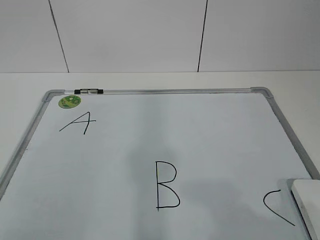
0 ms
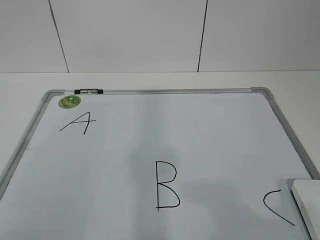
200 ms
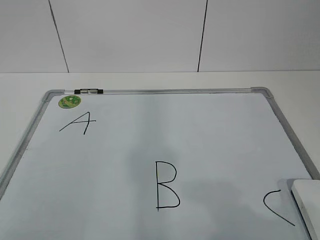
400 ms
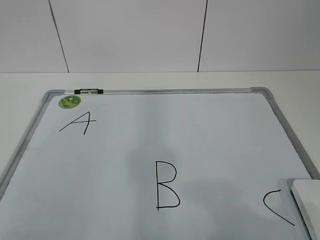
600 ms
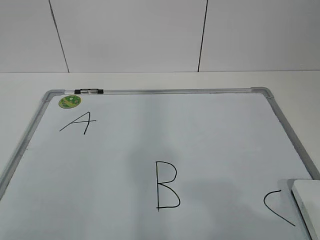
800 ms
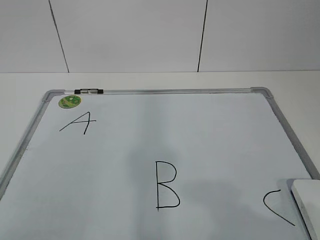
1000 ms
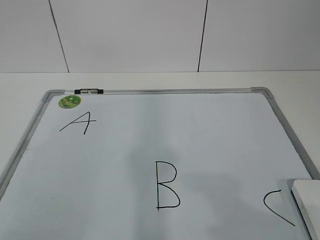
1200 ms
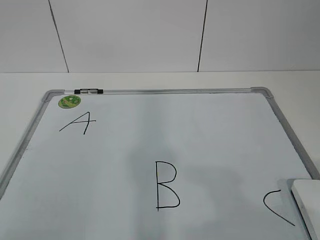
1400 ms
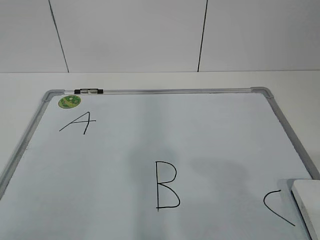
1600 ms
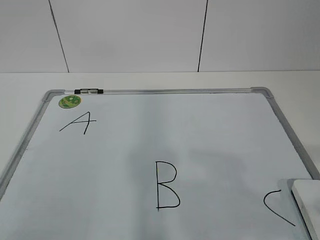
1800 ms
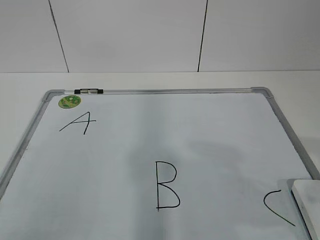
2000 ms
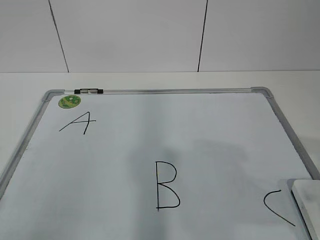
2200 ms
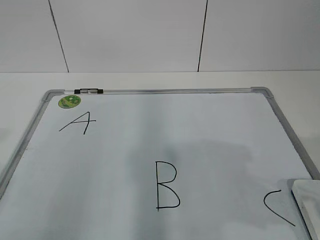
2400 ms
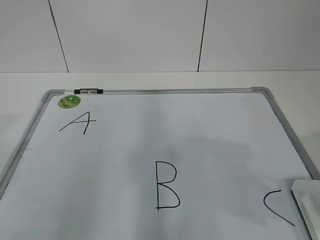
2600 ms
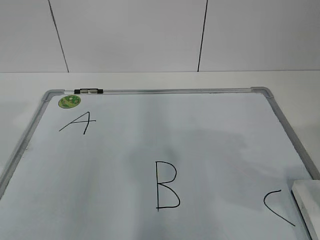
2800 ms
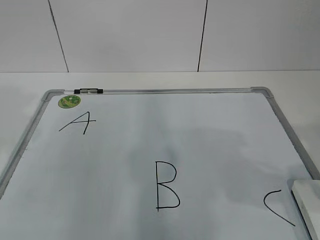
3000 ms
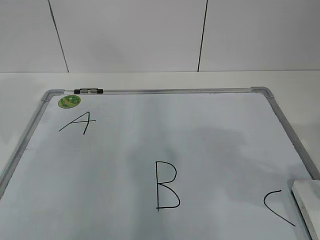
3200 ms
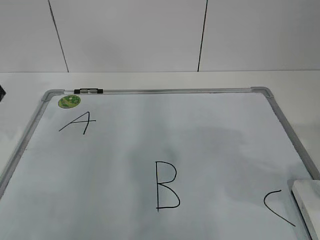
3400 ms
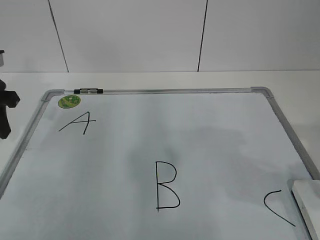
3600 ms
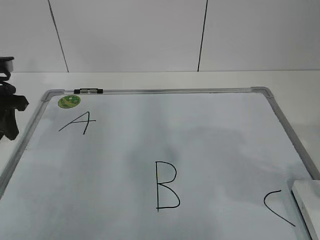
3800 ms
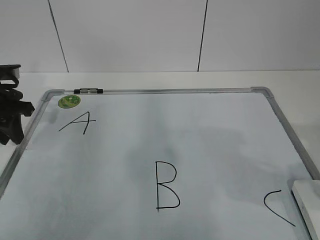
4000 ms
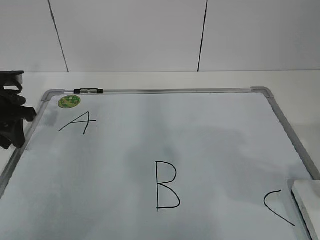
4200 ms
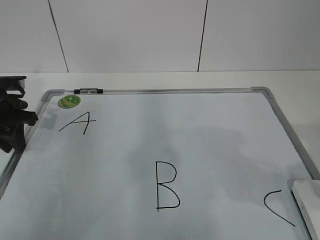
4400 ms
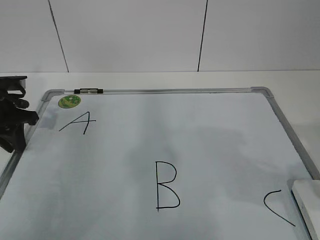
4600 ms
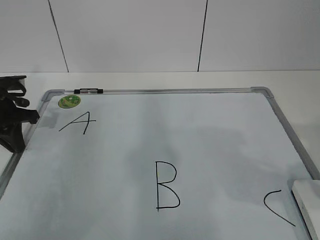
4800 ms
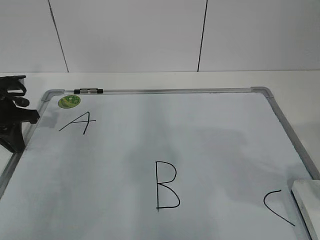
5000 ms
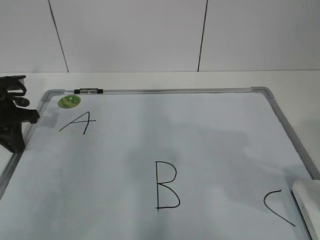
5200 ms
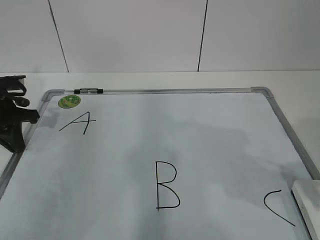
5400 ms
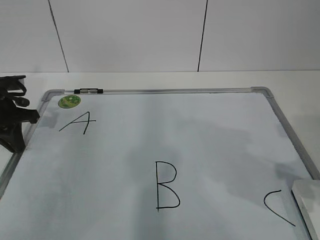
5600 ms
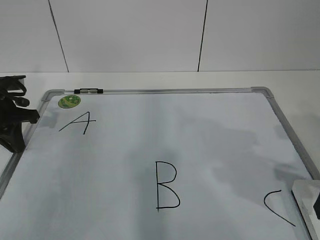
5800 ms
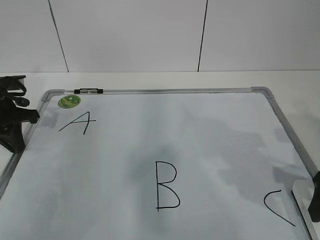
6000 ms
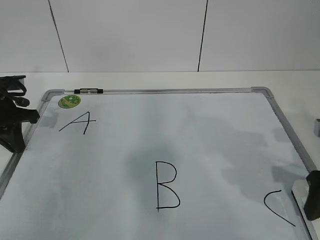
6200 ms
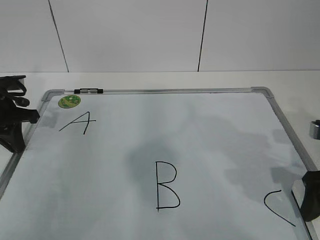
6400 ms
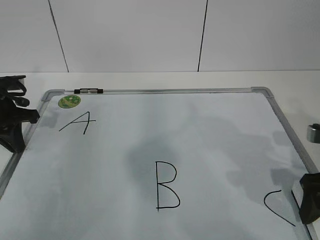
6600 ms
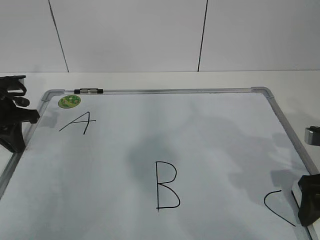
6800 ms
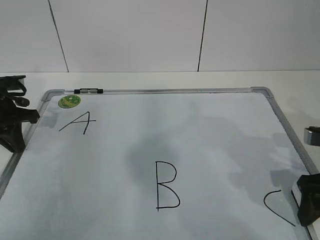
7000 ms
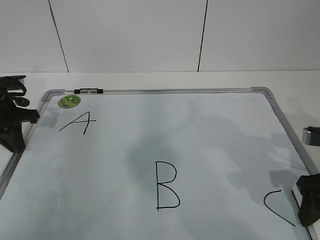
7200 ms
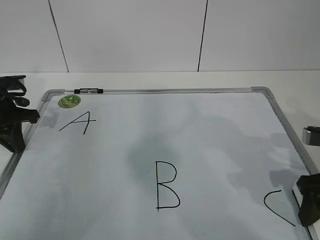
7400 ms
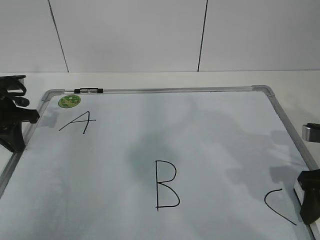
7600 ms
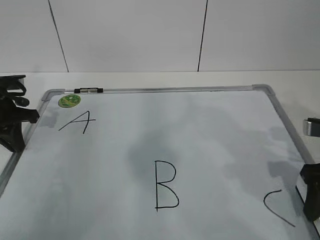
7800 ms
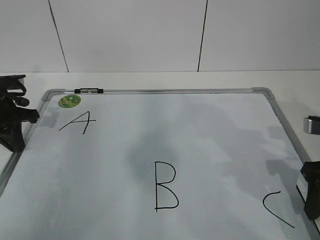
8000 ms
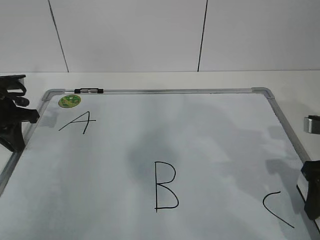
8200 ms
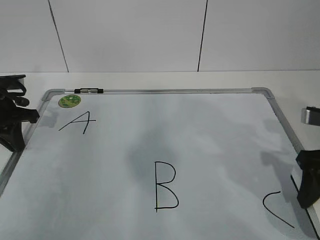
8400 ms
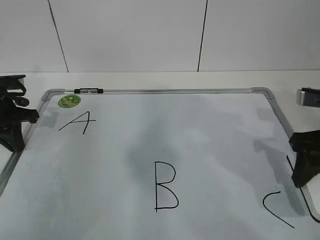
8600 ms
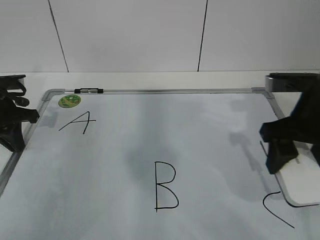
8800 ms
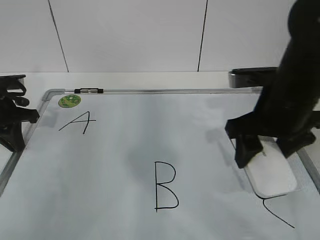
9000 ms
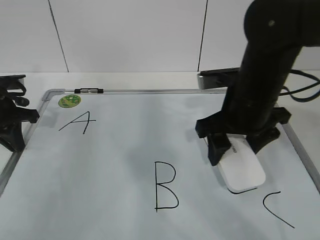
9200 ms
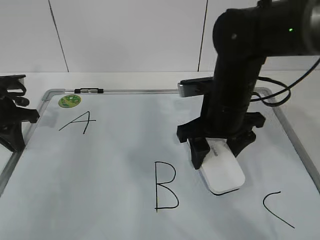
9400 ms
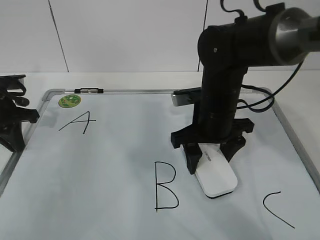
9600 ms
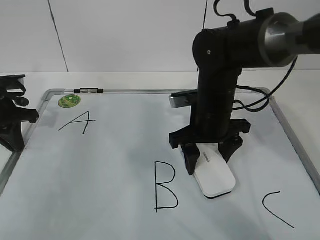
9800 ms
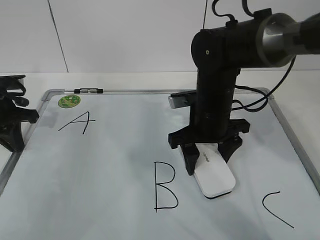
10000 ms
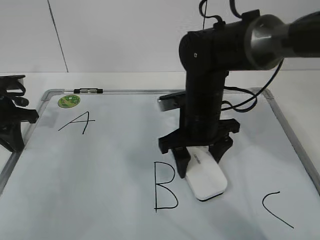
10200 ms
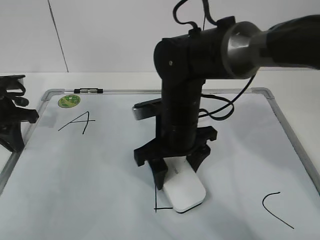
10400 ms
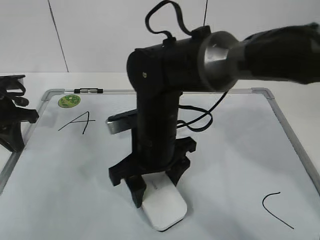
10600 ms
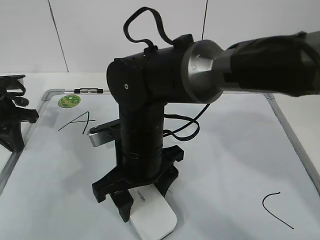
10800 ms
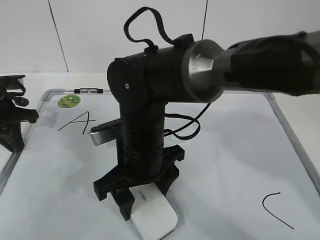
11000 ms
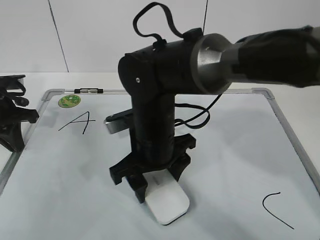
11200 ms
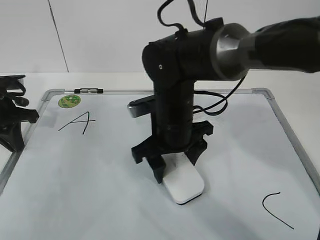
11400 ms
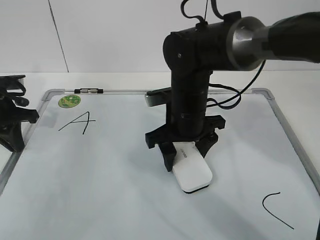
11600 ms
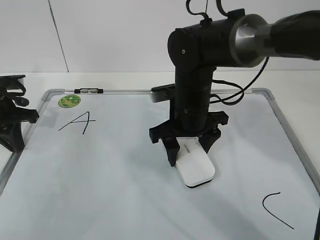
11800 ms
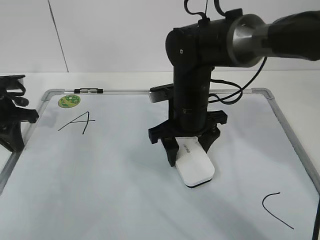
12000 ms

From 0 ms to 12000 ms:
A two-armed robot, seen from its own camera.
Task of the whole recording: pick up the eraser on the blackboard and erase the letter "B".
Step, from 0 ms to 3800 ms: Hold the drawing board steady with your left hand.
Step, from 4000 ms to 6200 ms: Grab the eraser with your right hand.
Step, from 6600 ms to 11200 ms: Erase the letter B with your right hand.
From 3000 ms to 4400 ms: The left gripper moves forward and downward, roughly 20 cm.
From 4400 ms to 6000 ms: The left gripper closes its fingers; the right gripper moves forward and downward, about 10 cm, and opens up.
From 6000 ms to 7600 ms: The right gripper closes up.
From 7600 ms to 9000 ms: The right gripper is displaced to the left and upward by some 10 cm.
From 9000 ms to 10400 ms: The right gripper is displaced to the left and downward by roughly 15 cm.

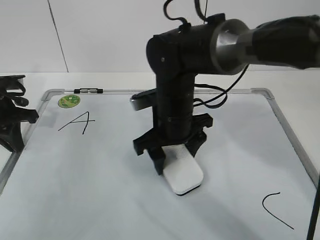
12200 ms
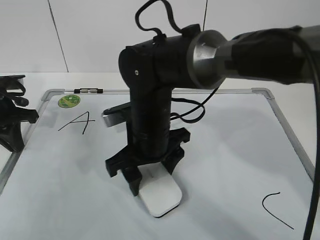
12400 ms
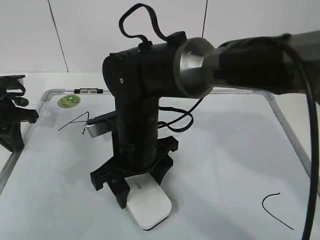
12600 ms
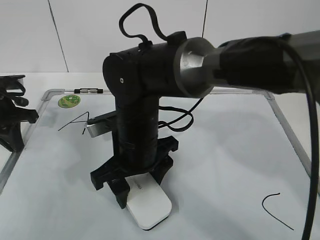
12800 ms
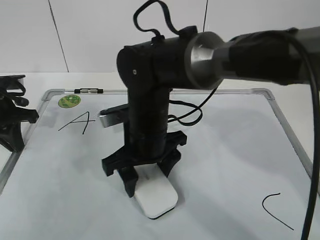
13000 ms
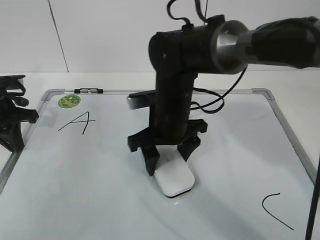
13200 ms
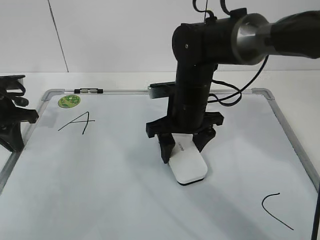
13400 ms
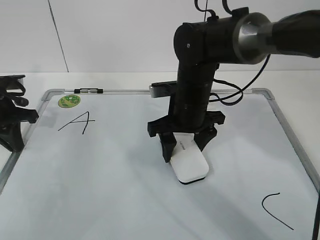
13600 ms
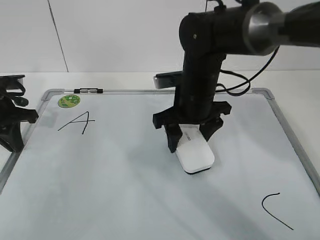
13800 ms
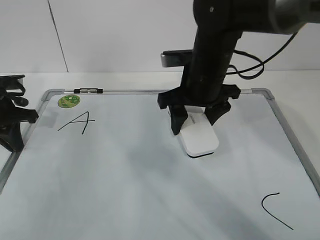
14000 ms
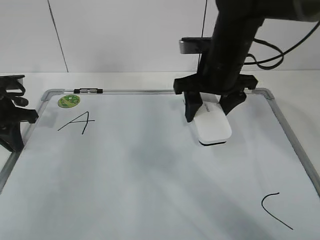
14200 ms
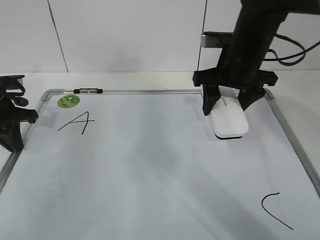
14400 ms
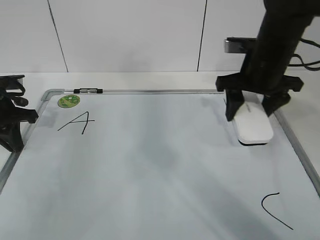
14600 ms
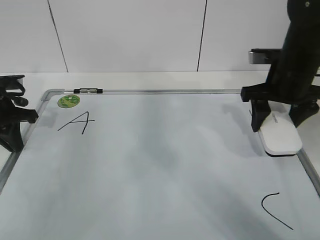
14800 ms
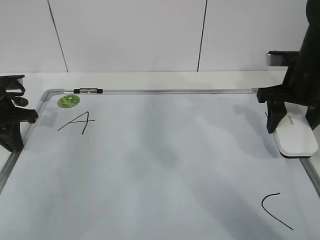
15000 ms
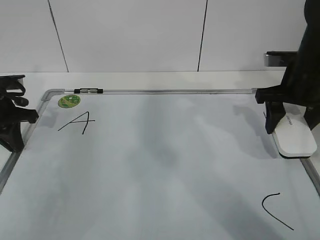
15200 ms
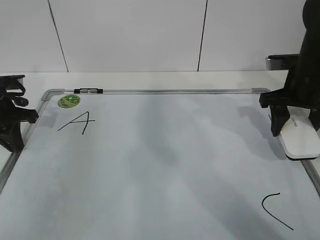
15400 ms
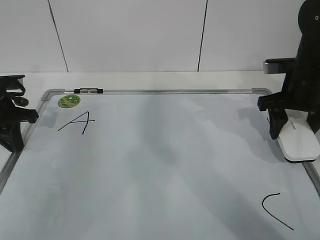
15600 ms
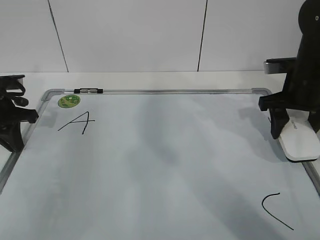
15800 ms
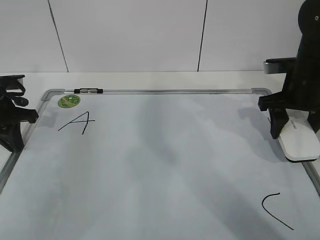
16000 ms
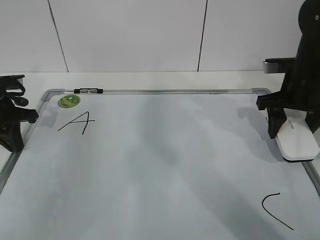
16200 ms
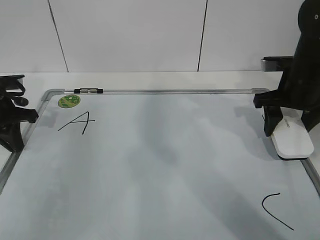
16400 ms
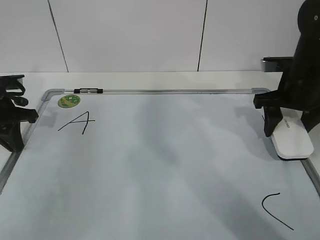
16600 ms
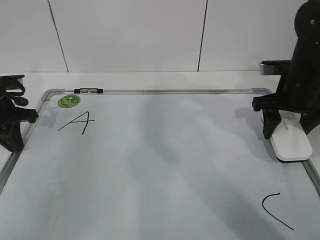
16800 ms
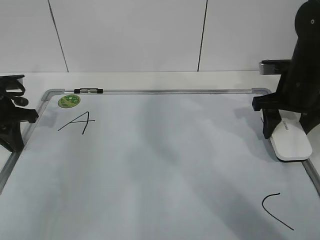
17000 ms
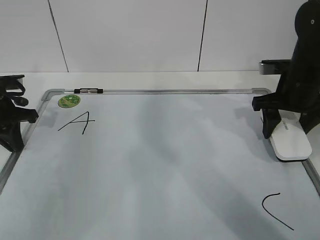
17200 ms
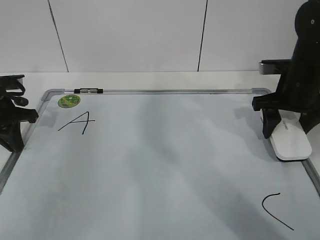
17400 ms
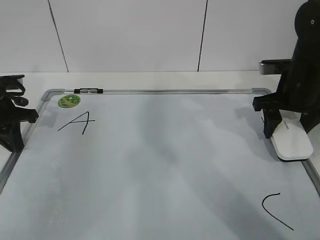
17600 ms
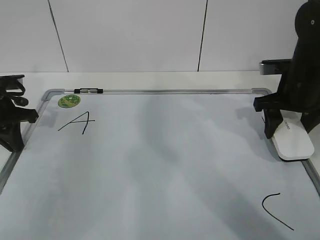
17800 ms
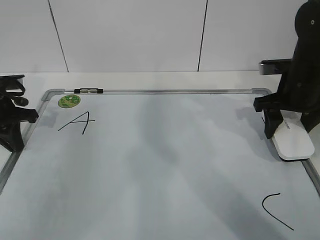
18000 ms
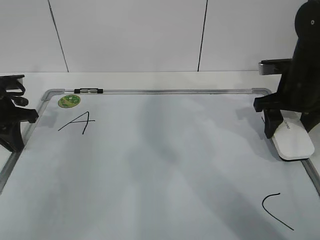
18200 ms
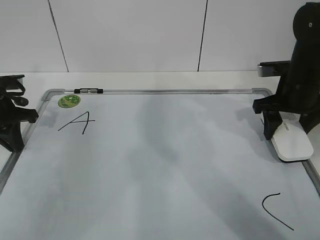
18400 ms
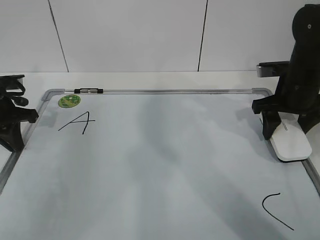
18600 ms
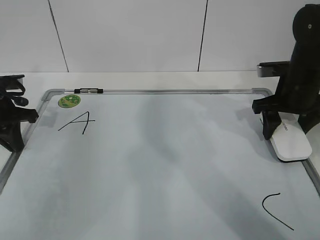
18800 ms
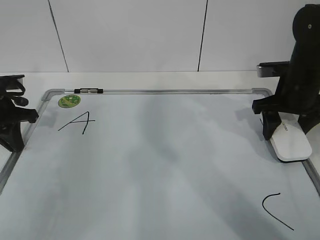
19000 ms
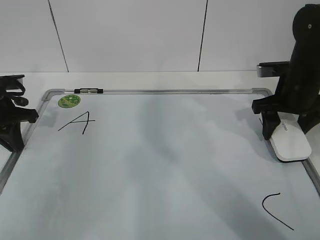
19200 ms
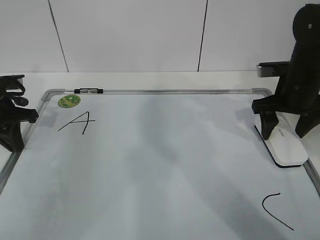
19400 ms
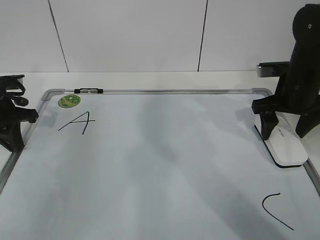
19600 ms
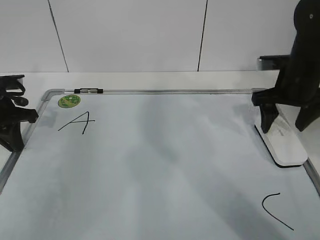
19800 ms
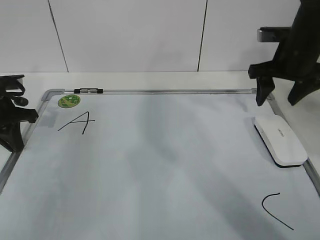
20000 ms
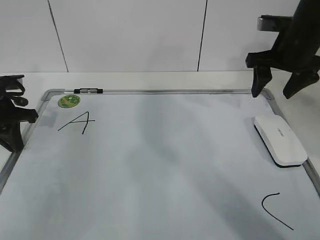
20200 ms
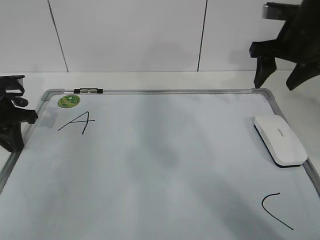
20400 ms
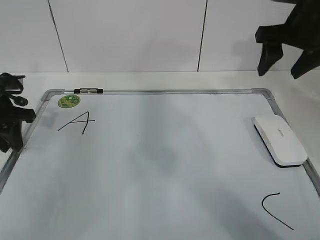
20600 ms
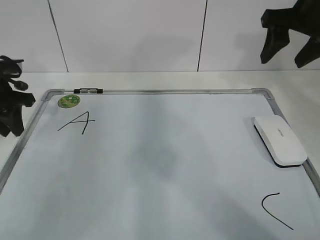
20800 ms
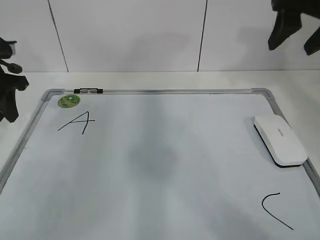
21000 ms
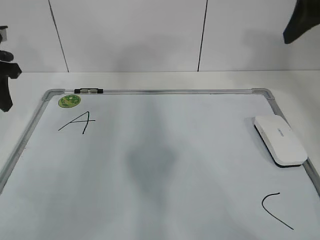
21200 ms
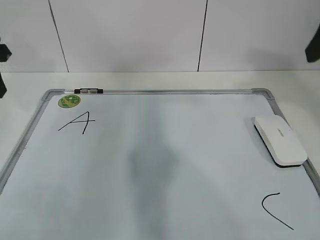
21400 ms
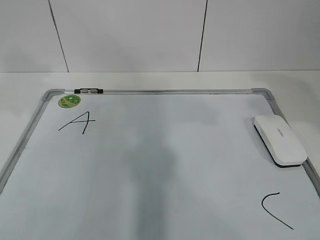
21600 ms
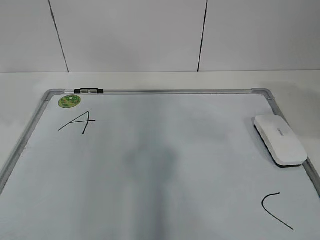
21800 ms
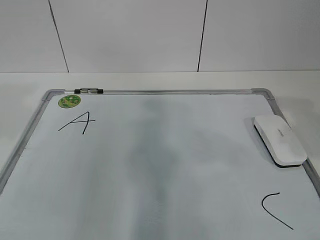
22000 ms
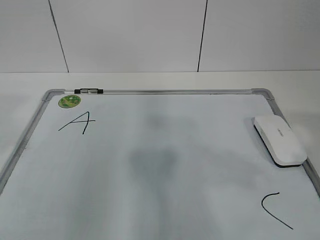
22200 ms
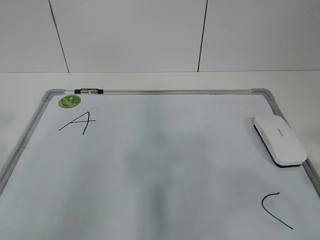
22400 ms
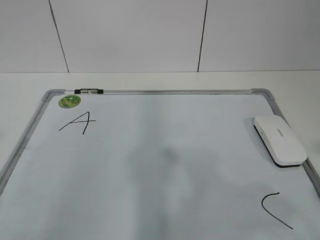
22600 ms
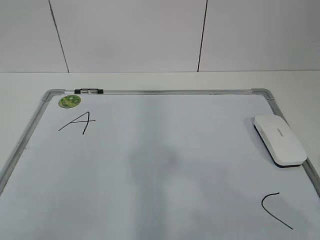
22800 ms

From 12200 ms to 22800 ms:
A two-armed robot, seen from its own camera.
Task of the whole recording: pick up the eraser on the blackboard and erase the letter "B".
Step, from 12200 ms to 16000 ms: Put down the eraser with your right hand.
From 13800 ms to 15200 ms: The right gripper moves to the right, roughly 20 cm.
From 15200 ms to 16800 ms: The grippers move only a little.
From 16800 ms to 18200 ms: The two grippers keep their place.
From 18200 ms to 19800 ms: The right gripper opens.
From 19800 ms to 21200 ms: The right gripper heads upward, covering some 20 cm, and closes, while the left gripper shifts some 10 cm upward, and opens its fingers.
From 21200 ms to 22800 ms: The grippers both shift backward by approximately 35 cm.
